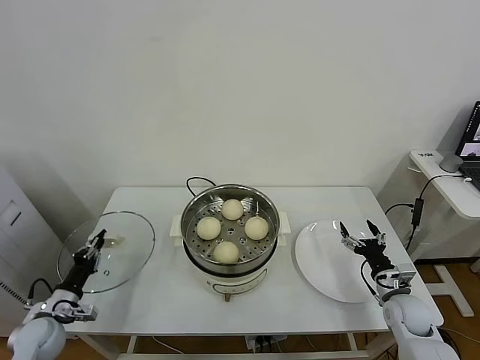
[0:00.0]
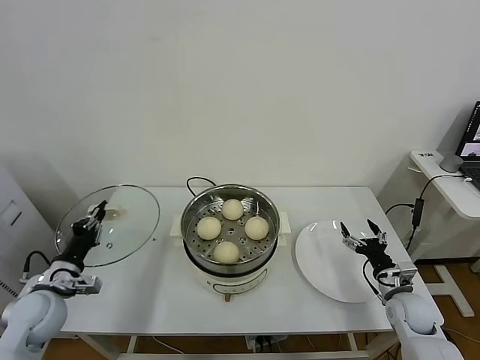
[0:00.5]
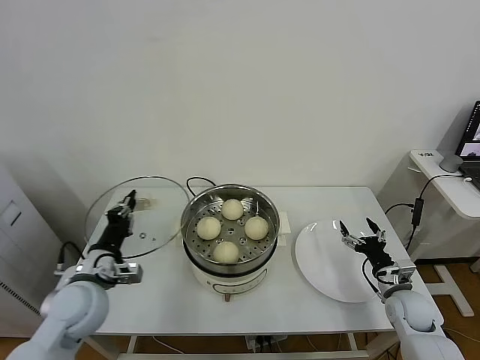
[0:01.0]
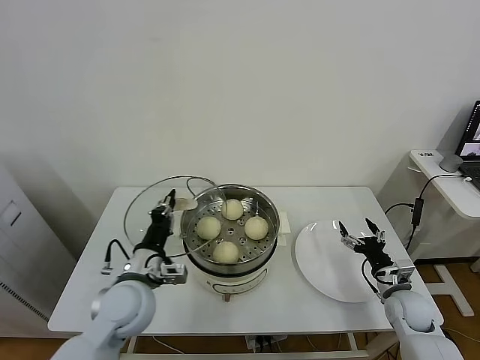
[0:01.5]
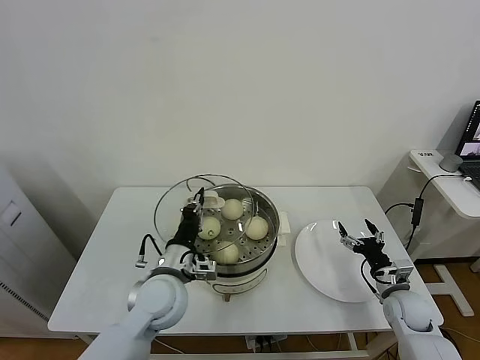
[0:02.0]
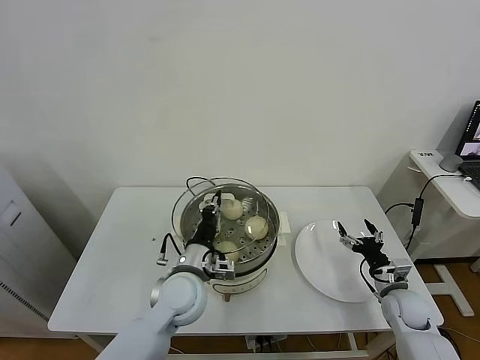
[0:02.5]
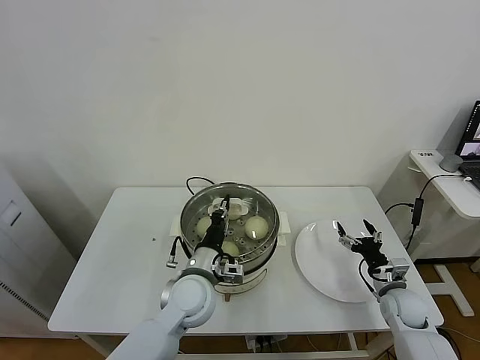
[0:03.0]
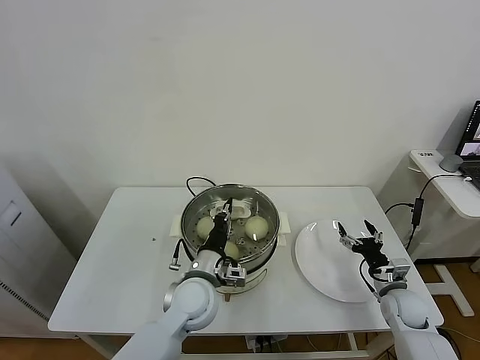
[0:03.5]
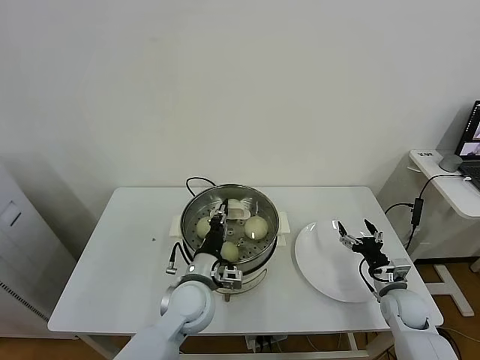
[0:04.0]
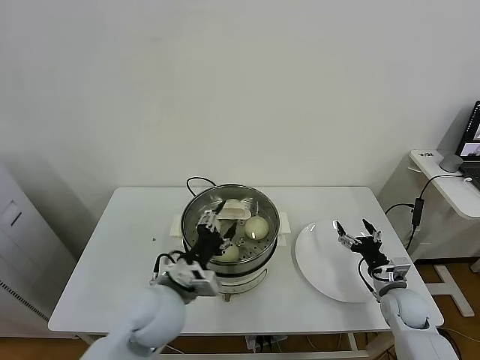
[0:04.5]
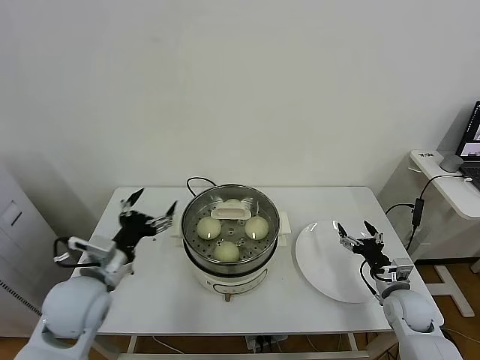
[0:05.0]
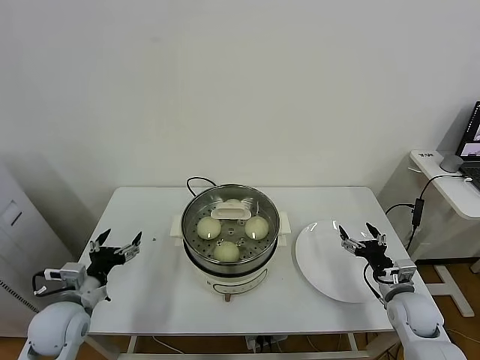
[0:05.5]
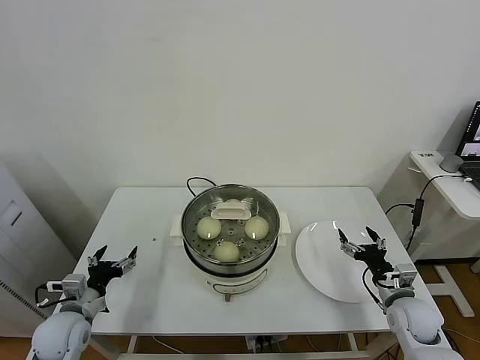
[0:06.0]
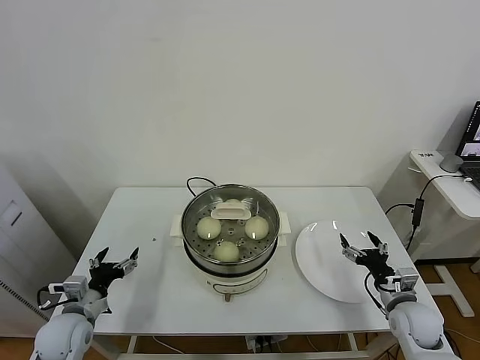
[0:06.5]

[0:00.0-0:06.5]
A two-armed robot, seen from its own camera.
Task of the whole recording: take steamed baozi put them in steamer.
Step, 0:00.0 to 0:04.5: Place the pot lid on the steamer with left gripper.
0:00.0 to 0:02.0: The left gripper moves to the right and upward, approximately 30 cm.
0:02.0 to 0:04.5: The left gripper opens.
0:04.5 to 0:06.5: The left gripper travels to the left and downward by approximately 25 cm. Meanwhile the right gripper shifts by roughly 5 cm.
